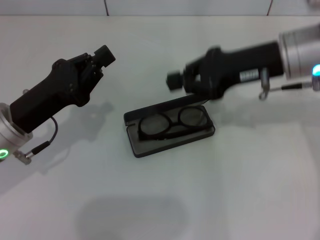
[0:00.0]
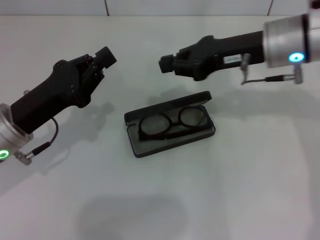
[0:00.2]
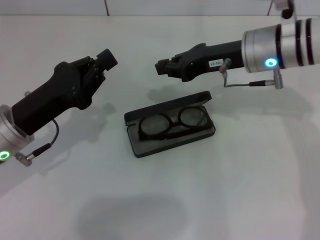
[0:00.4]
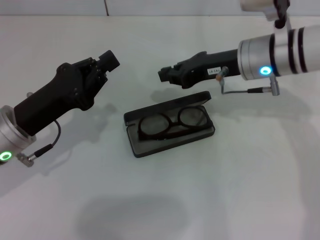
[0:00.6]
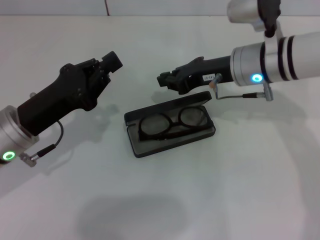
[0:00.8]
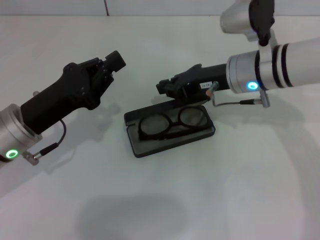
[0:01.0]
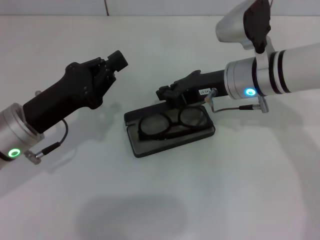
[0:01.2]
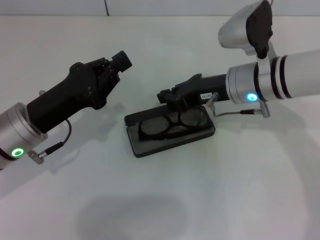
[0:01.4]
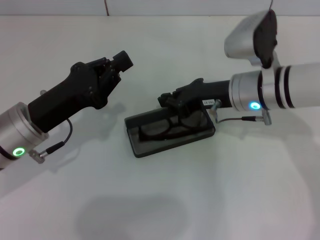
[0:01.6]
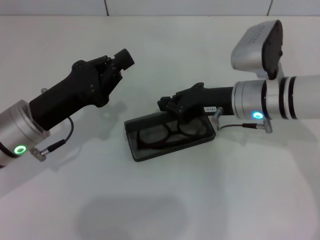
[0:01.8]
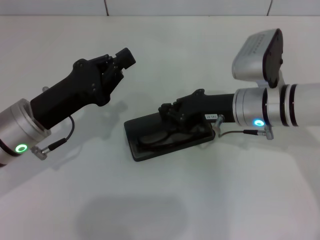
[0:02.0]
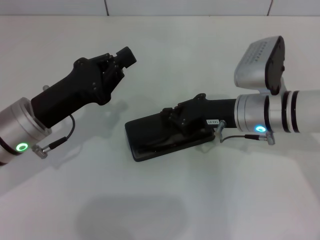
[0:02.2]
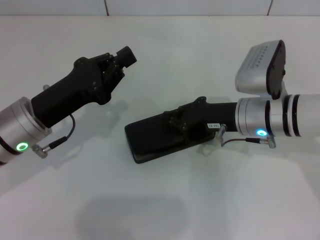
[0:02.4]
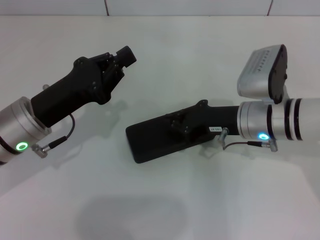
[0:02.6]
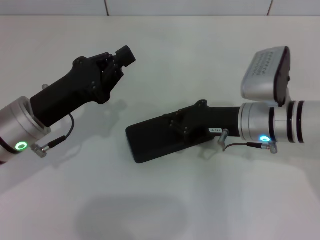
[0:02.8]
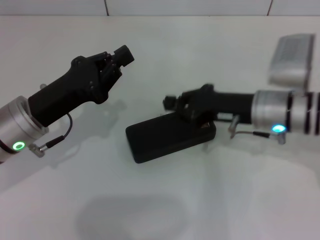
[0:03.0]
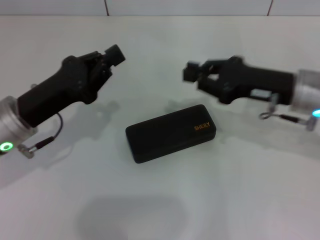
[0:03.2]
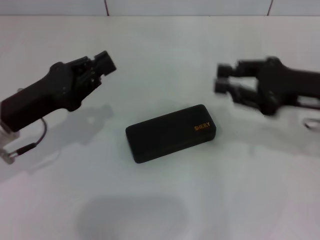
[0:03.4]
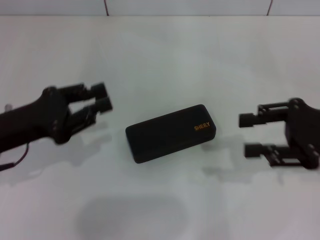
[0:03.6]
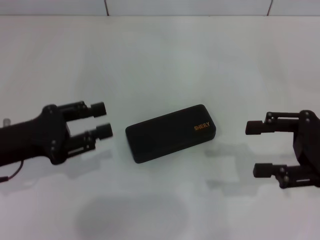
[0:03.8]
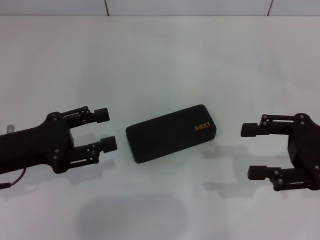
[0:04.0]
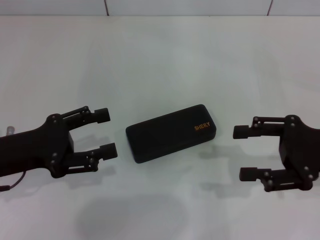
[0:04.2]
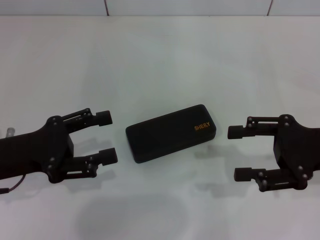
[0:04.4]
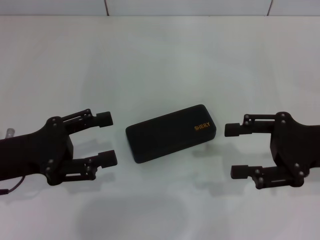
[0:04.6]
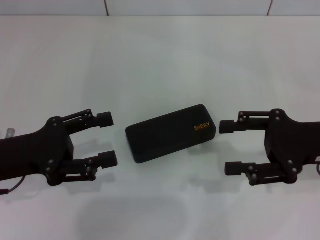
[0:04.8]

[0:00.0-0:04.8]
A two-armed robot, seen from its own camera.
0:00.0 to 0:01.6: The right gripper heads downward, covering about 10 cm.
0:01.6 to 0:03.2: The right gripper moves to the right, about 10 cm.
0:03.2 to 0:04.8: The left gripper moves roughly 5 cm, and opens up. The right gripper shifts roughly 5 cm to the right, and opens up.
